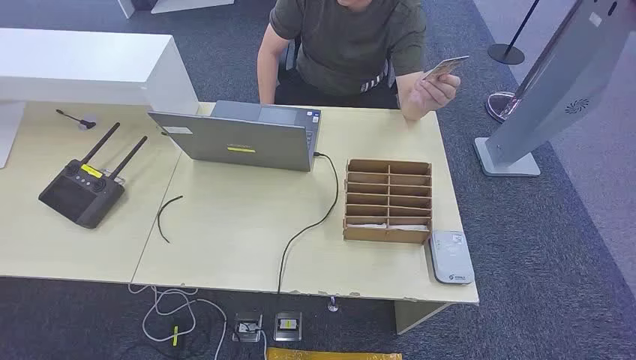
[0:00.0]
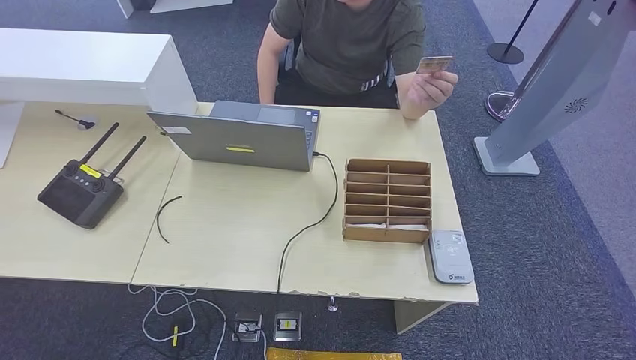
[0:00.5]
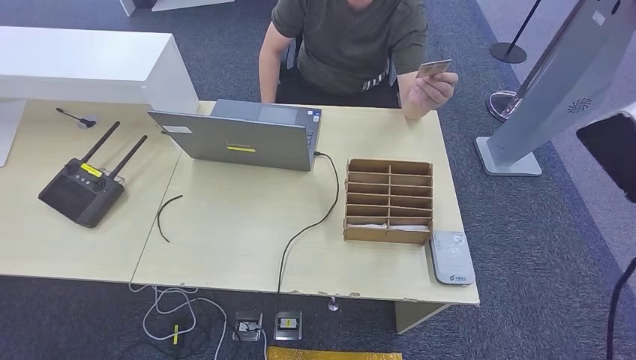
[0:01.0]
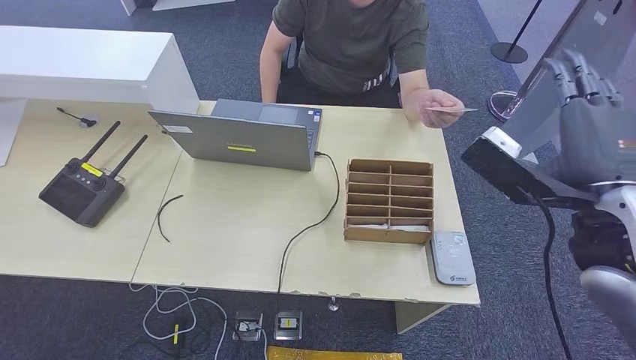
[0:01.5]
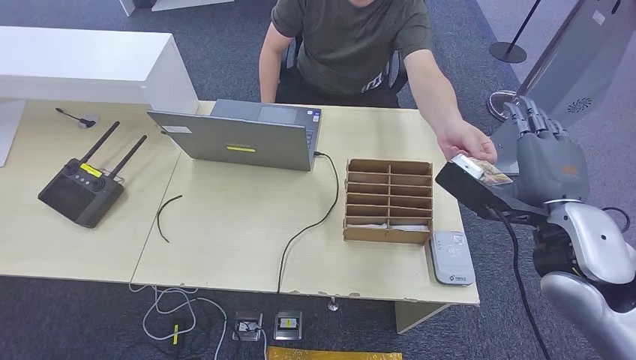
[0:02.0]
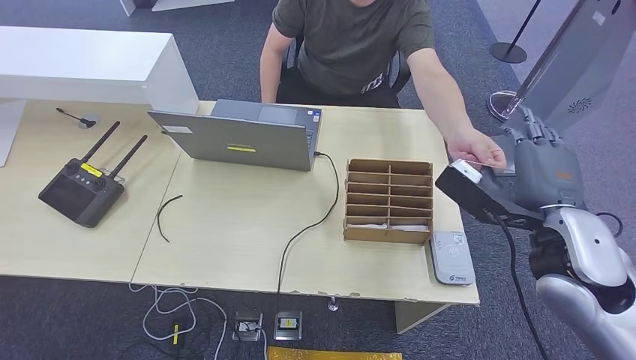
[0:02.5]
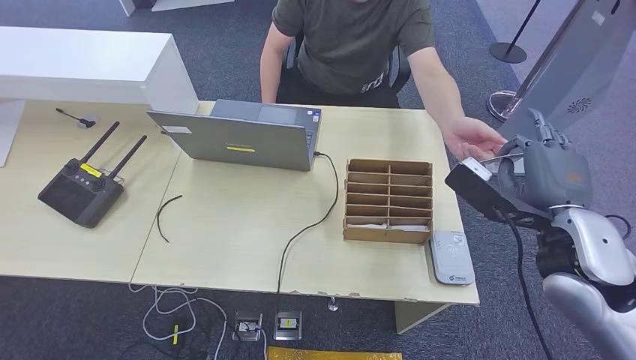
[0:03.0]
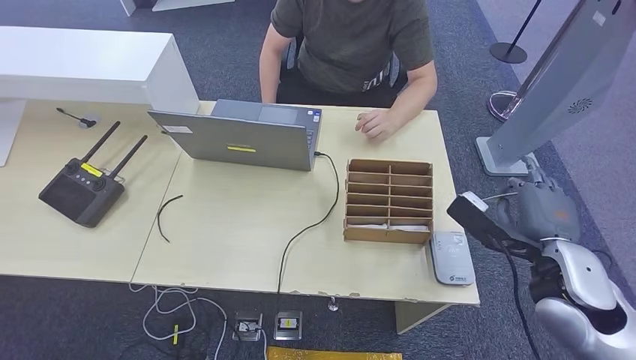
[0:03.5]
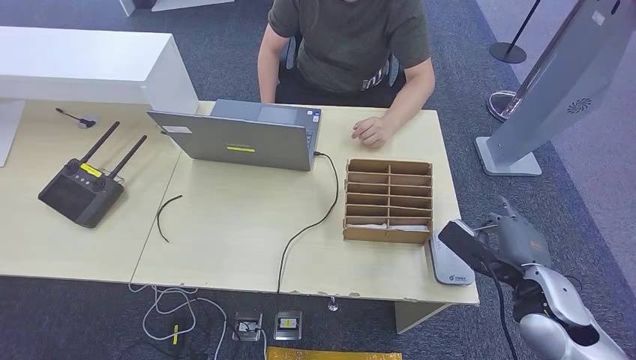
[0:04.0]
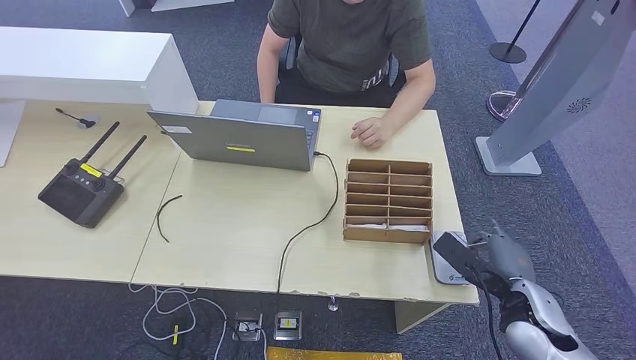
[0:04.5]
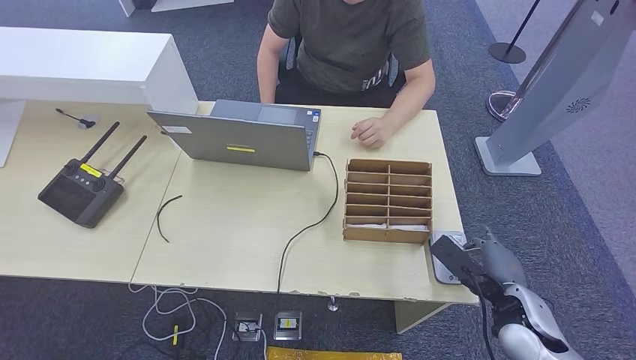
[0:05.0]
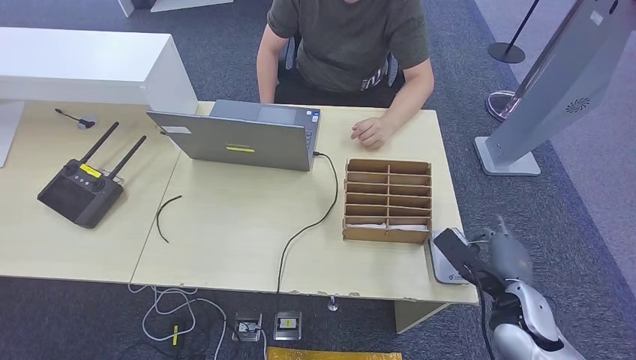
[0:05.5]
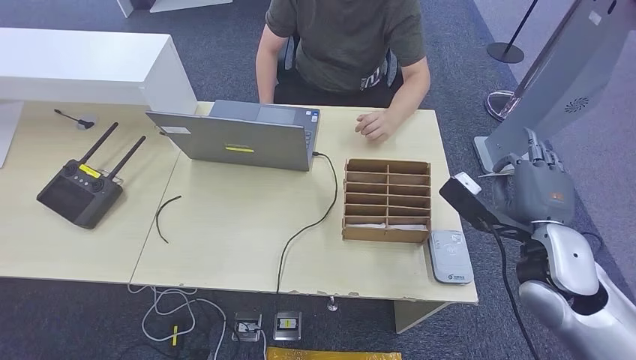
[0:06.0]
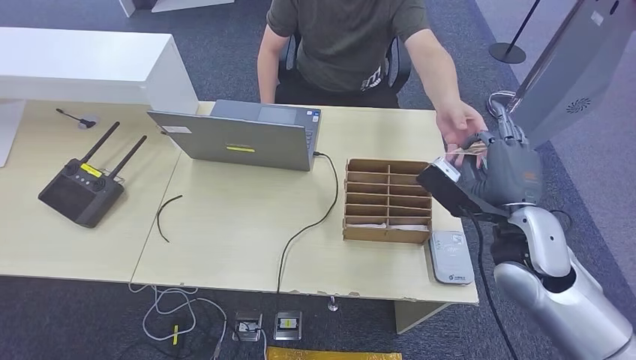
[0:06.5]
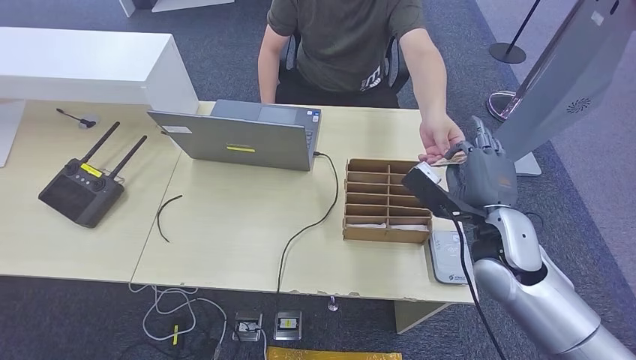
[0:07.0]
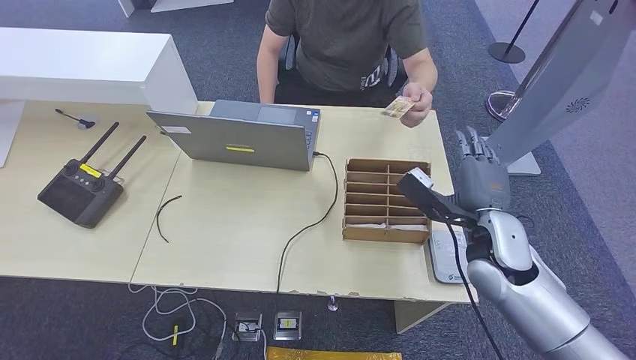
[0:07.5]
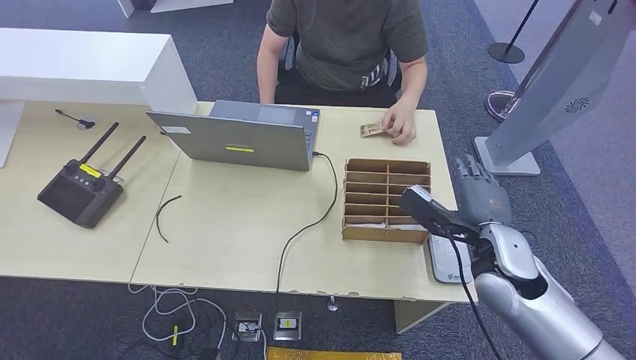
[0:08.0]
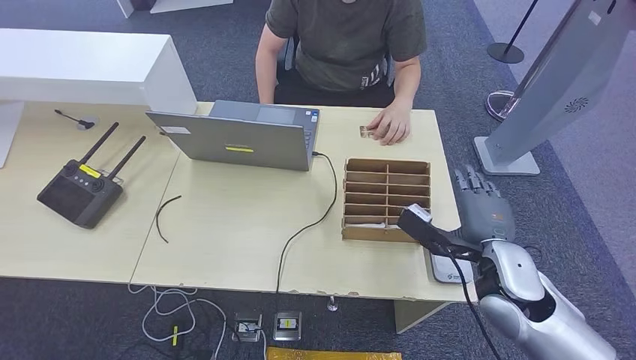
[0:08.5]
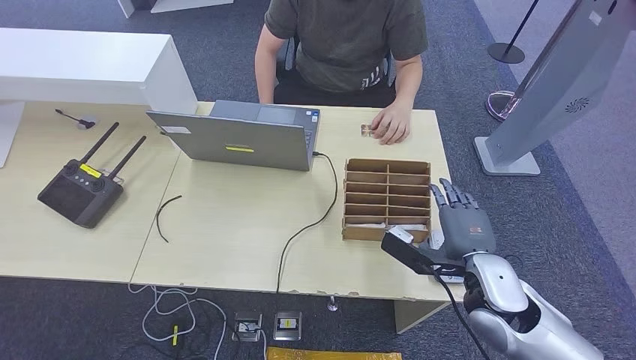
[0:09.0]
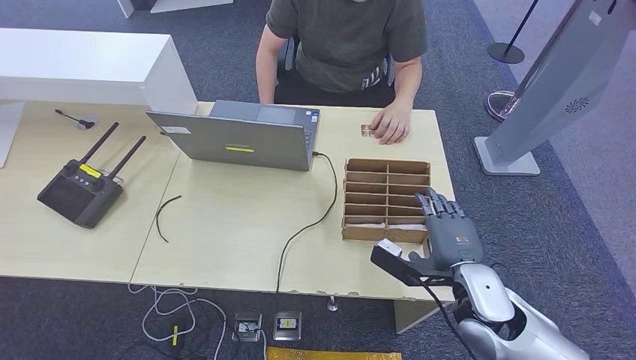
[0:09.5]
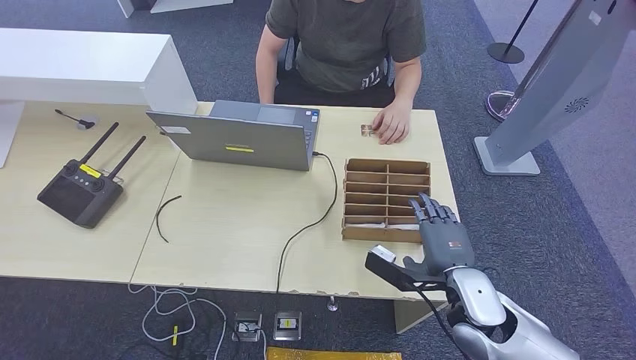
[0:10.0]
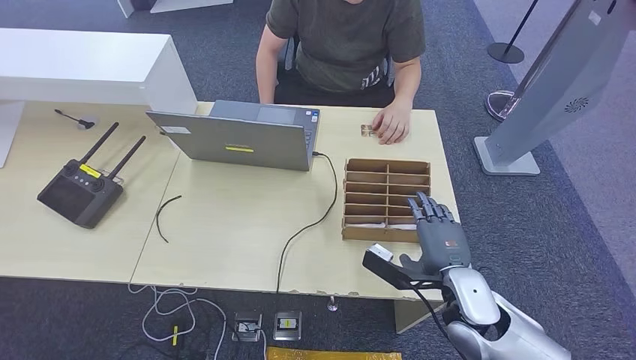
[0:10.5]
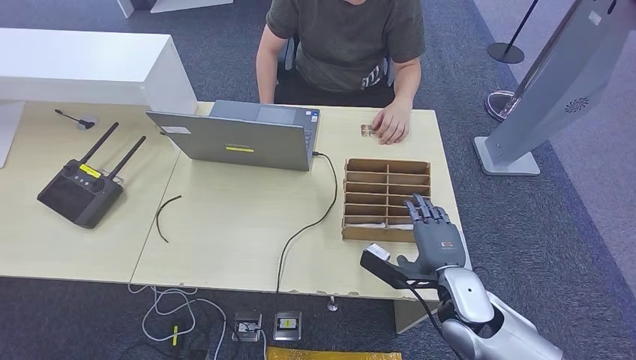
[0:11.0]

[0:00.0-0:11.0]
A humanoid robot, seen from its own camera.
Step, 0:00.0 to 0:03.0: Take the ID card from the person's hand.
Step, 0:03.5 to 0:05.0: Place the ID card on the card reader.
Step, 0:05.5 to 0:07.5: Hand the ID card to the person.
0:02.0 to 0:03.5: The right hand moves downward, roughly 10 cm.
0:03.5 to 0:05.5: The right hand goes roughly 10 cm downward.
0:05.5 to 0:07.5: The right hand shifts about 15 cm upward, forward and to the left.
0:07.5 to 0:09.0: The right hand moves backward, approximately 5 cm.
0:09.0 to 0:11.0: The right hand ends up roughly 5 cm from where it was.

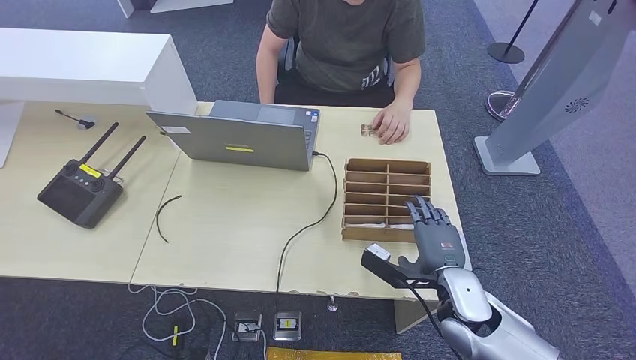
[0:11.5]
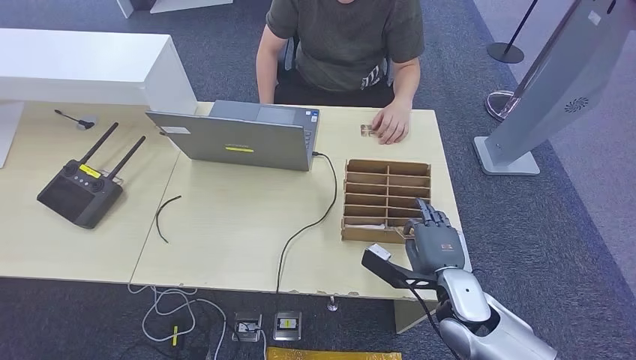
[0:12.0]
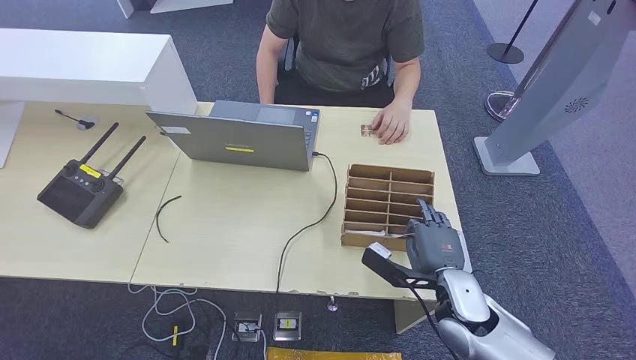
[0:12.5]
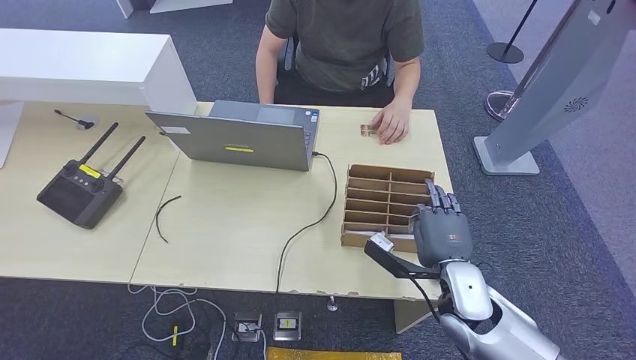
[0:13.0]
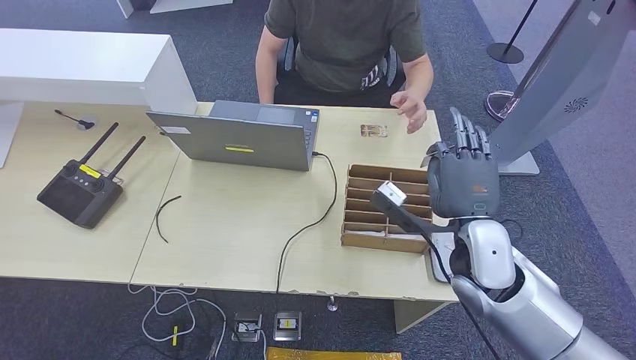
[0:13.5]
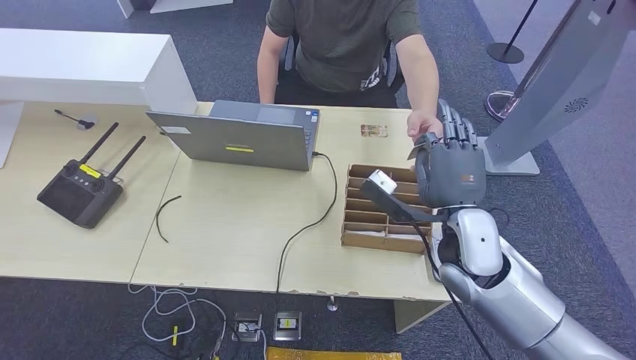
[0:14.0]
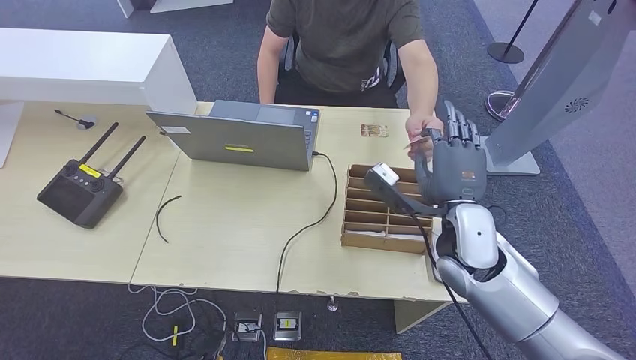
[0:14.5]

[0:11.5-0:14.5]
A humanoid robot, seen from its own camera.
Step, 0:13.5 to 0:14.5: Hand the room key to the person.
0:11.5 to 0:13.0: The hands move only a little.
0:13.0 to 0:14.5: The right hand goes about 10 cm upward and forward.

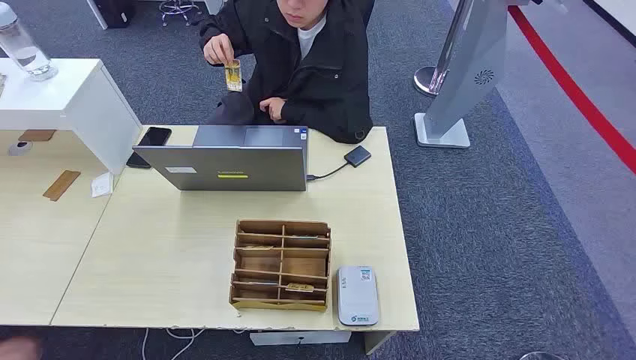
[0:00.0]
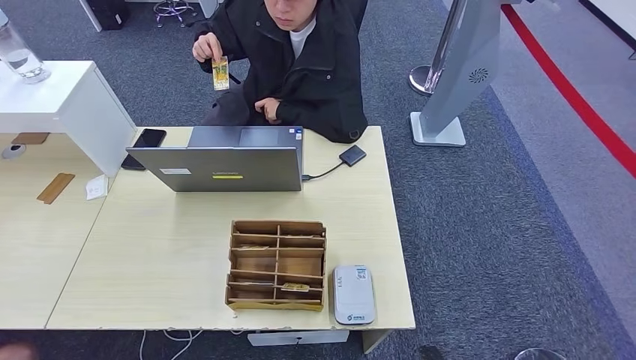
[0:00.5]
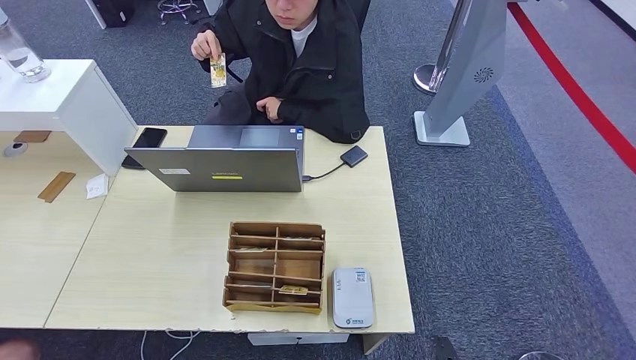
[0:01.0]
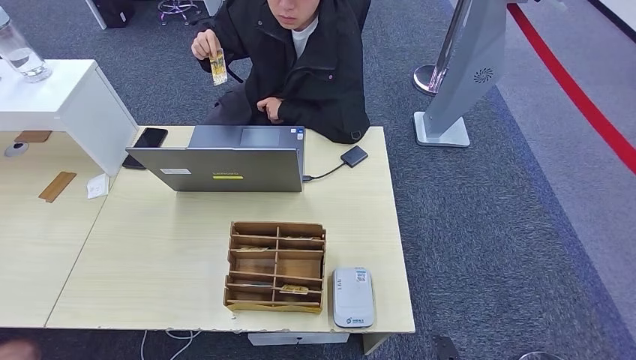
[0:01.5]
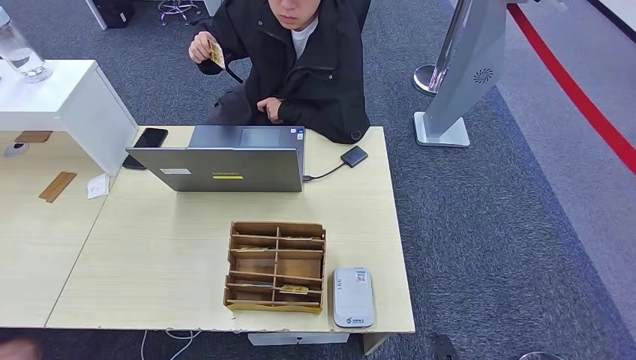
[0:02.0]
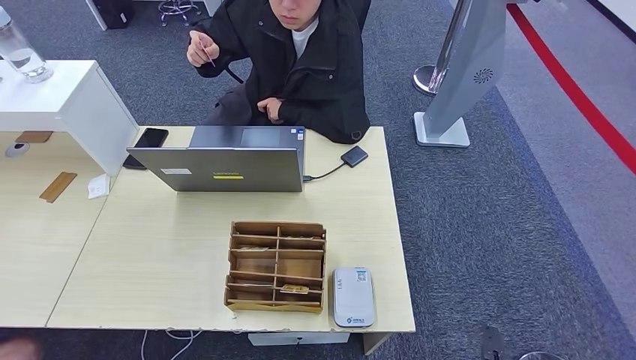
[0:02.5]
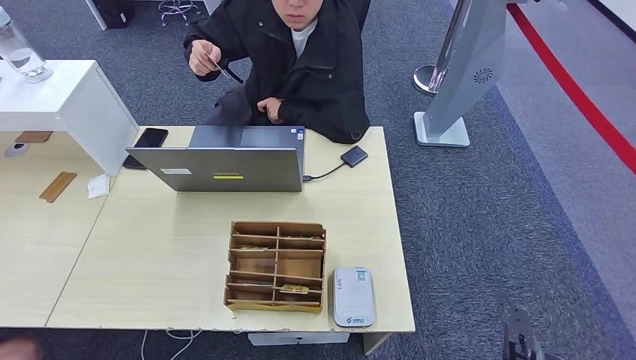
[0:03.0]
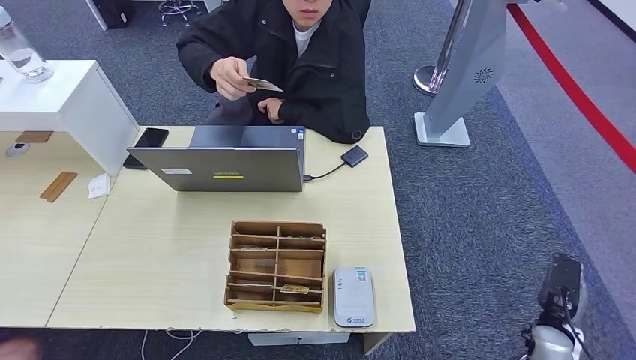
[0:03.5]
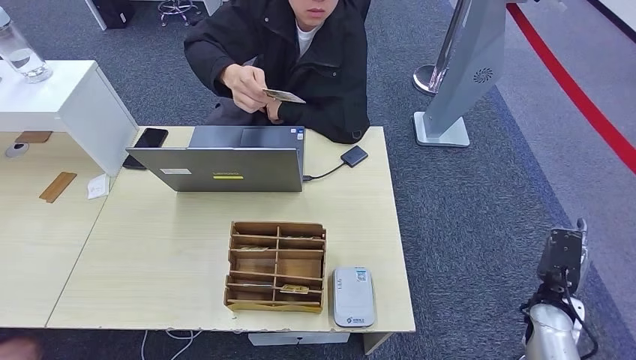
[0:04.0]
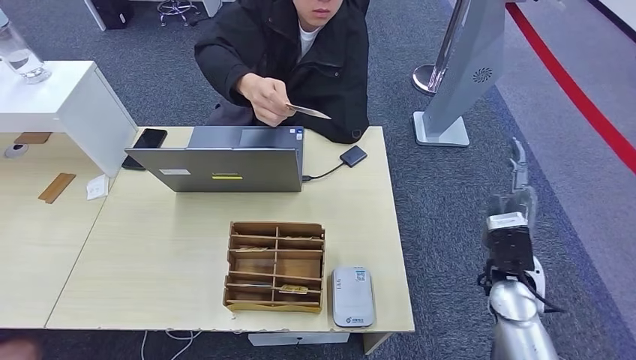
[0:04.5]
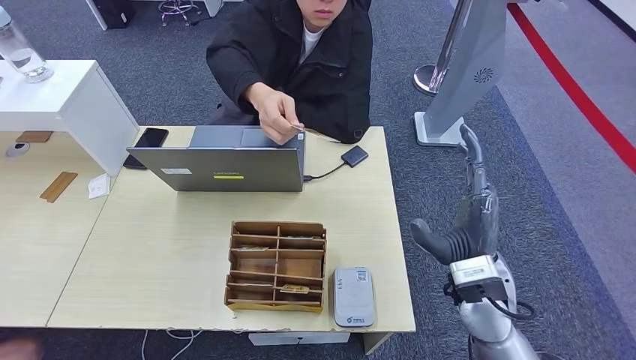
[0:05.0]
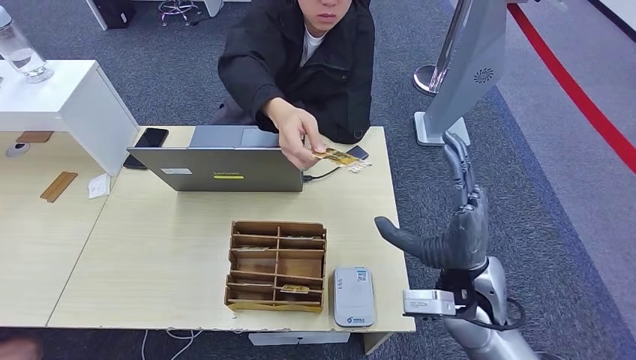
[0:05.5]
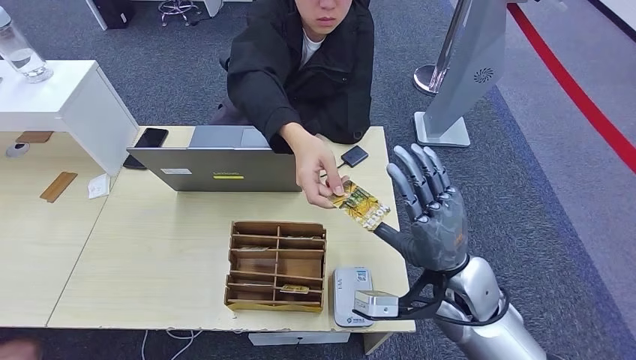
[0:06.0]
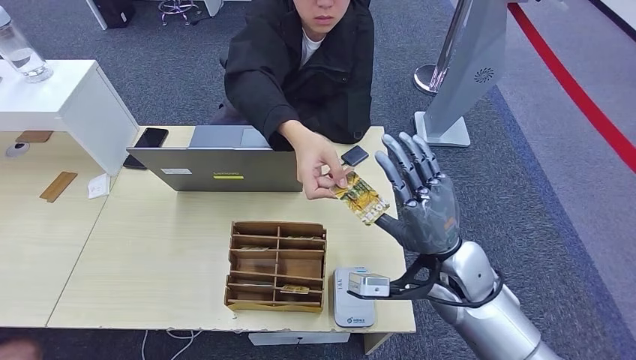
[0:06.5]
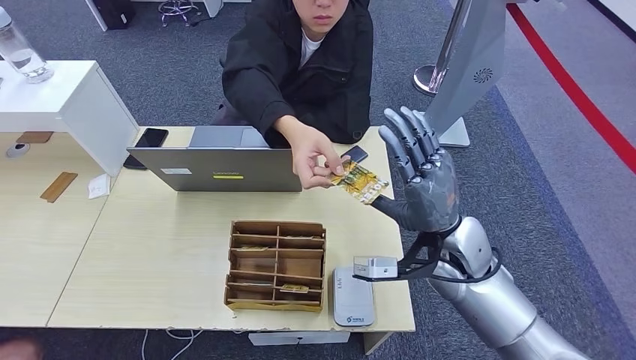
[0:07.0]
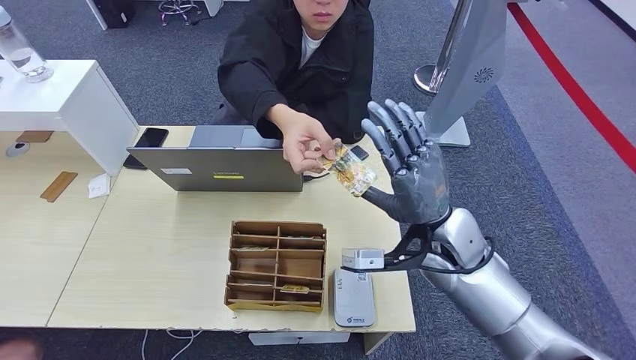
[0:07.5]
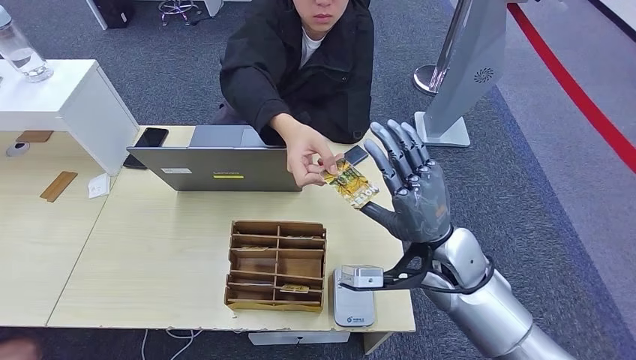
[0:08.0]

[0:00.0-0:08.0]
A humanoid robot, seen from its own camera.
0:02.0 to 0:04.0: The right hand travels upward, to the right and forward by approximately 25 cm.
0:04.0 to 0:06.0: The right hand heads to the left and upward, covering roughly 25 cm.
